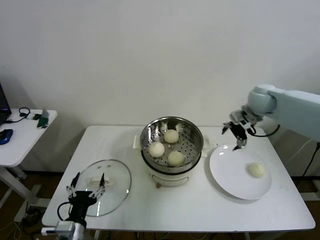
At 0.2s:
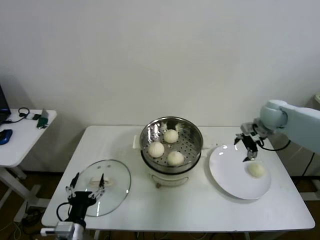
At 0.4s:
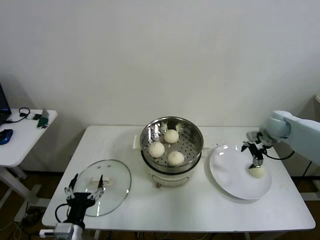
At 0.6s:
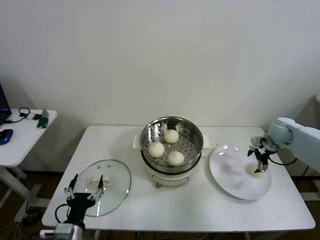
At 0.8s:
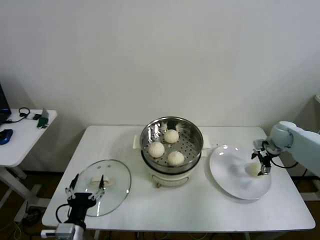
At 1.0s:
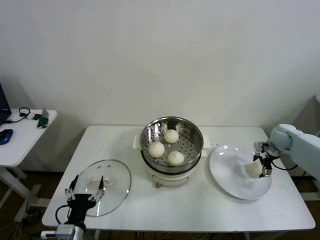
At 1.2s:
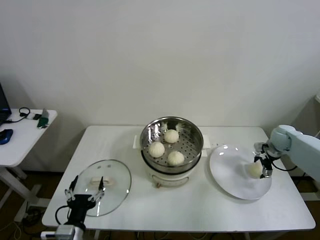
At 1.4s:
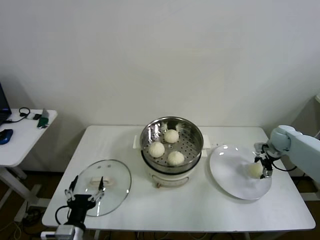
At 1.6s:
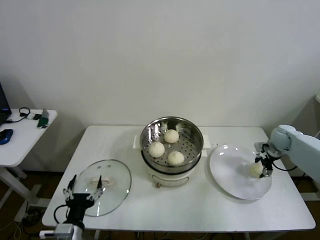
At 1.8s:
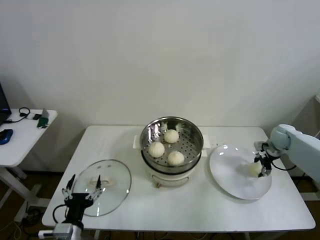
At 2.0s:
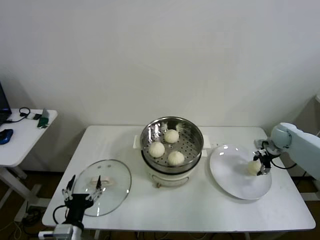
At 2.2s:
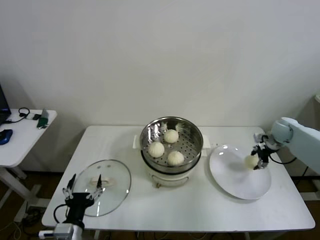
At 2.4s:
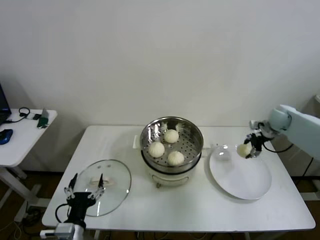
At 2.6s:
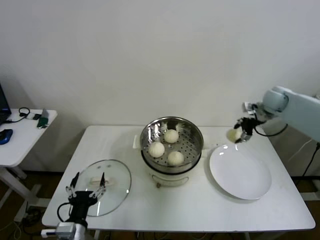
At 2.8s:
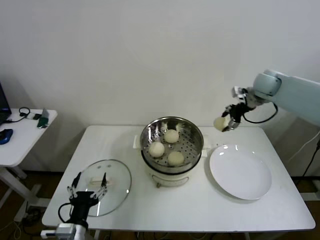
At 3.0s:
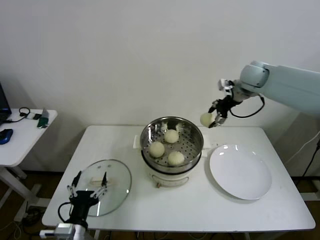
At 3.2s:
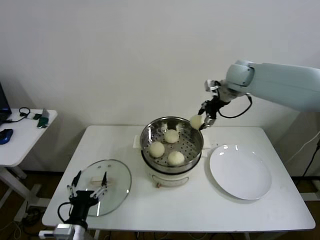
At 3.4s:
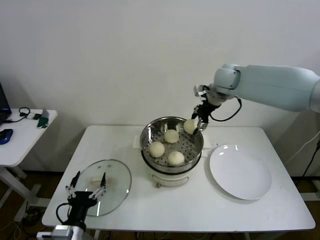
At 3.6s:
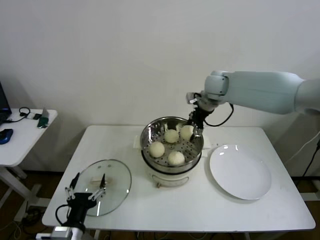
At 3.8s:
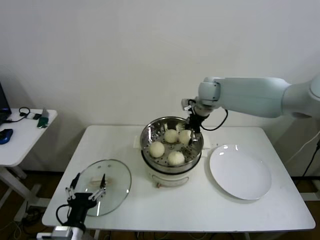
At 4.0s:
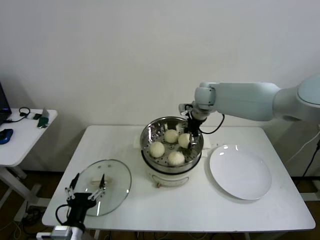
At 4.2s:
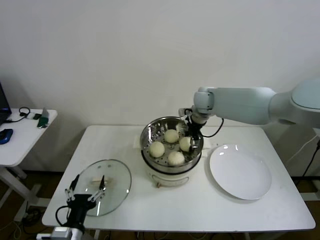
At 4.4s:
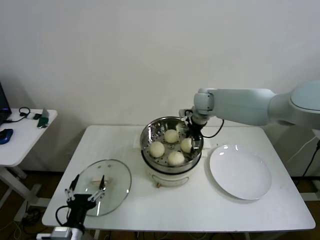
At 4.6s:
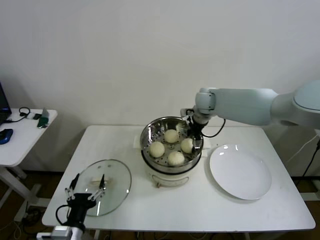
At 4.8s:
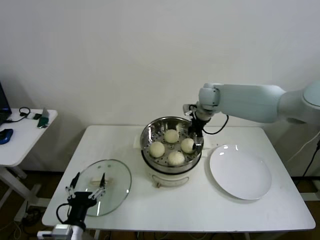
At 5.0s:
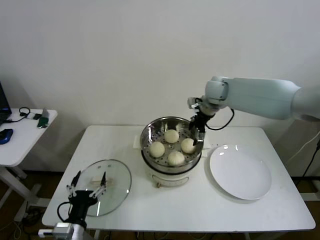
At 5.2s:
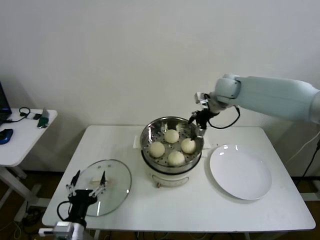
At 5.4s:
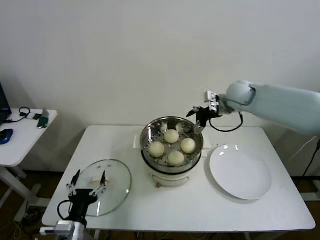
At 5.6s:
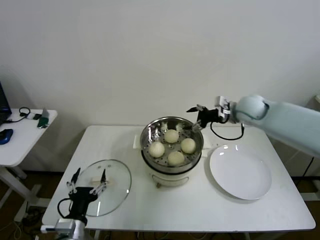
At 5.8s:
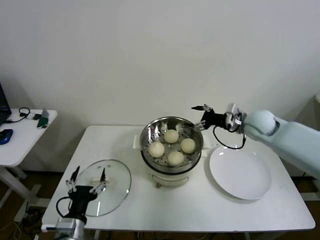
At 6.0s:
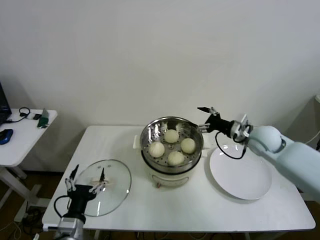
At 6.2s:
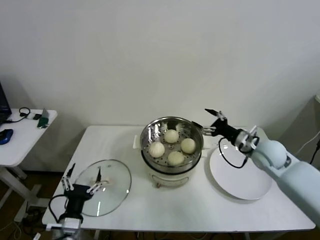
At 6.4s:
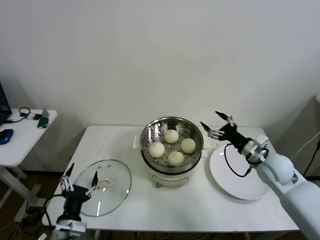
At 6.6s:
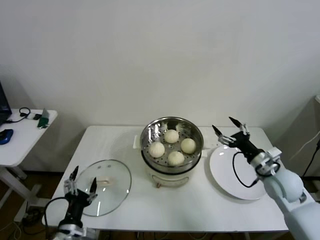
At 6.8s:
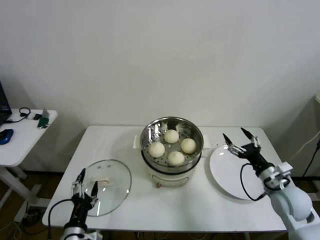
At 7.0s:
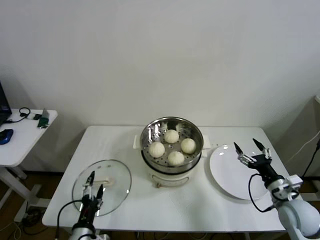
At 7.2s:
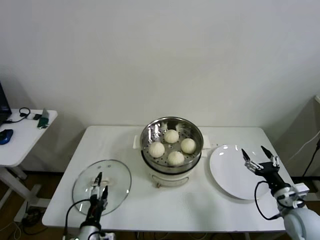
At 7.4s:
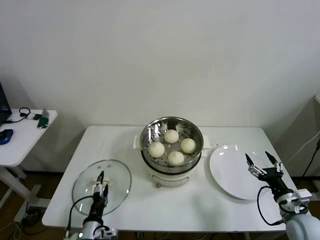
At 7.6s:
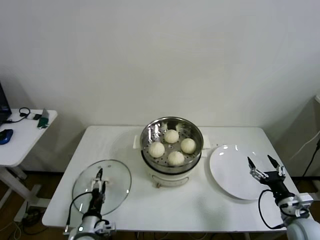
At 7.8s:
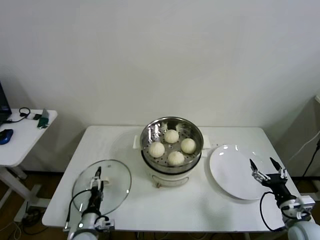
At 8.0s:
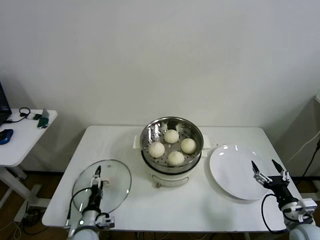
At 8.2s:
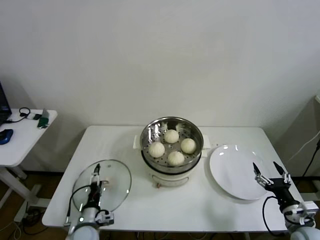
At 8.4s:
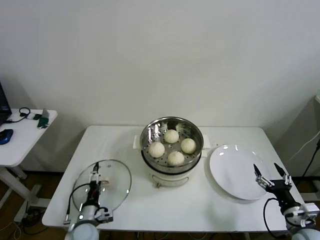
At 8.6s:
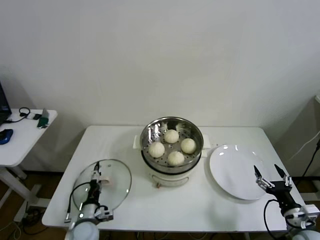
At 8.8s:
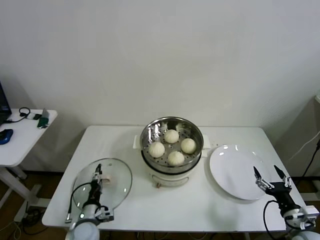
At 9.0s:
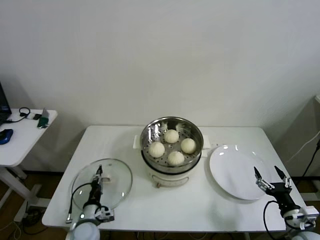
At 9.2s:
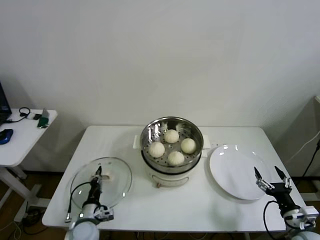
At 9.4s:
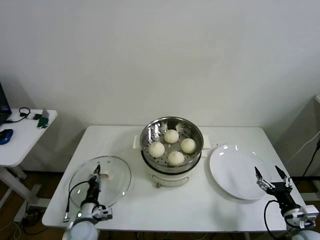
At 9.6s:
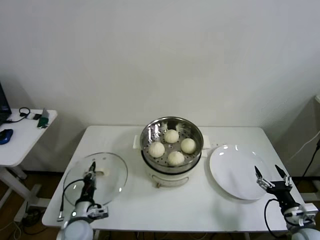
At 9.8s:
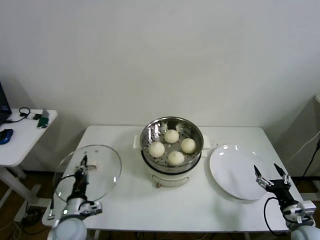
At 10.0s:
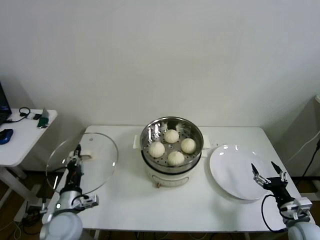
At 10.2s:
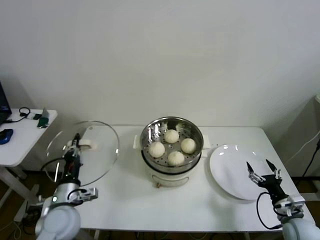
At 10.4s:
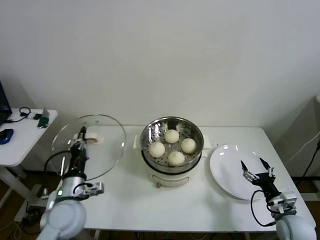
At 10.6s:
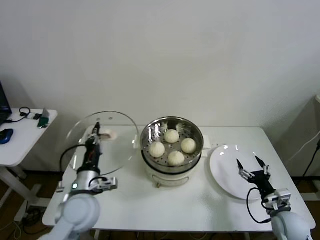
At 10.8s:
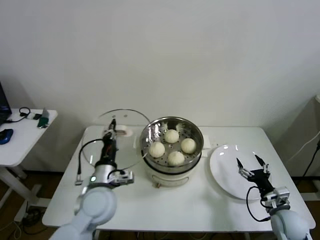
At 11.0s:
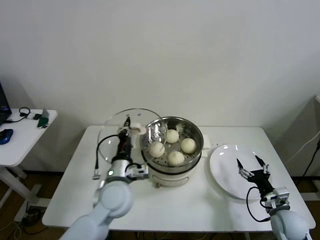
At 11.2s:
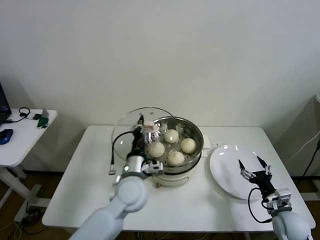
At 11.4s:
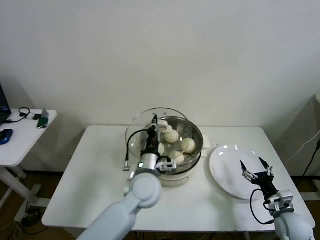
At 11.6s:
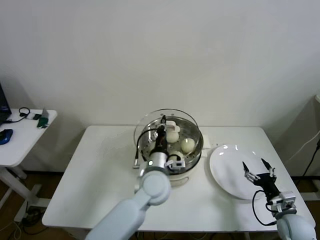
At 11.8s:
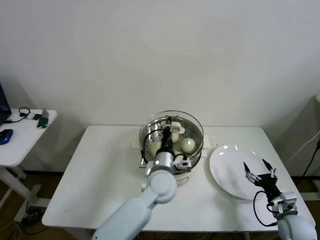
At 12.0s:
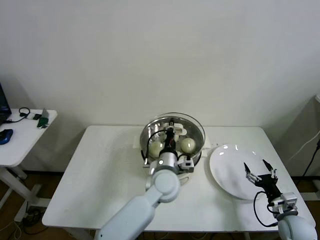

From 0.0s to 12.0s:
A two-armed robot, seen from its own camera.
Step, from 0.0s to 1.6s: Grasp the baozi in the plate with right gripper.
Step, from 1.8s to 4.6s: Place the baozi on the steamer with right gripper.
Step, from 4.8s to 9.0s: Grasp the pot lid with left gripper.
From 0.0s to 1.6s: The right gripper is displaced downward and to the right by roughly 25 cm, and closes.
From 1.6s to 3.0s: The right gripper travels upward and to the left by roughly 30 cm.
From 3.0s to 4.4s: The right gripper travels to the left and downward by some 20 cm, and opens.
From 4.4s to 6.0s: The right gripper shifts about 20 cm to the right and backward, and opens its fingers.
From 6.0s to 7.6s: The left gripper moves downward, some 10 cm. Meanwhile the right gripper is displaced backward and downward by some 30 cm.
From 7.6s to 9.0s: The left gripper travels forward by roughly 5 cm, and closes.
From 9.0s to 10.4s: The left gripper heads upward, covering some 20 cm, and closes. Meanwhile the right gripper moves forward, some 5 cm.
From 10.4s to 12.0s: The left gripper travels to the right by some 25 cm.

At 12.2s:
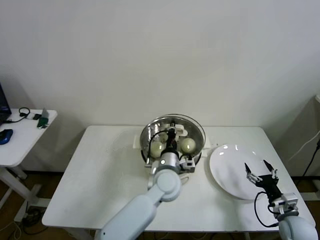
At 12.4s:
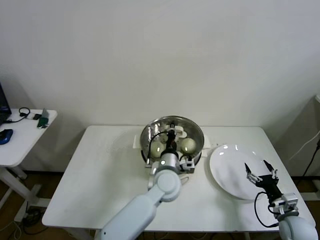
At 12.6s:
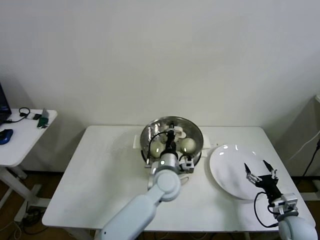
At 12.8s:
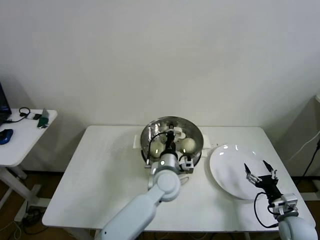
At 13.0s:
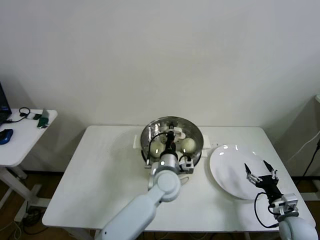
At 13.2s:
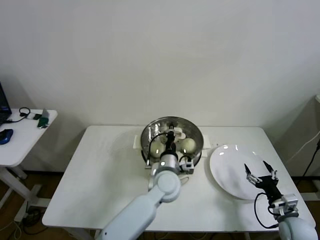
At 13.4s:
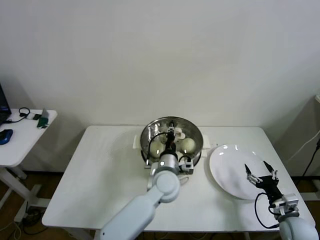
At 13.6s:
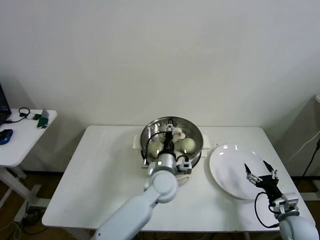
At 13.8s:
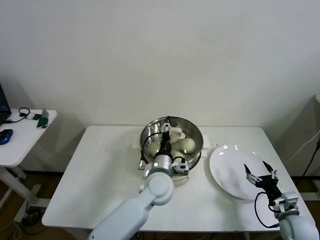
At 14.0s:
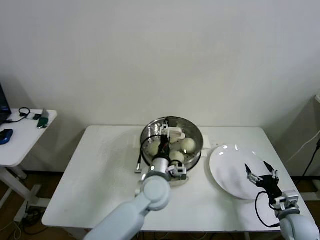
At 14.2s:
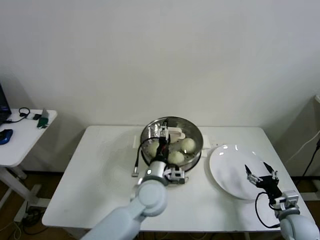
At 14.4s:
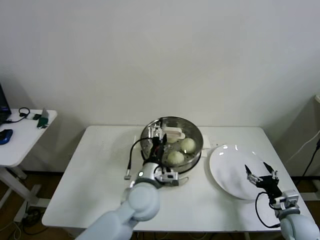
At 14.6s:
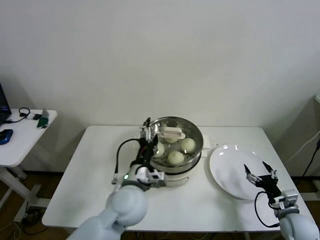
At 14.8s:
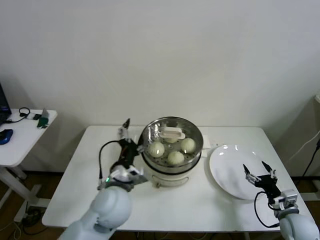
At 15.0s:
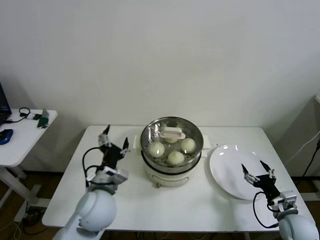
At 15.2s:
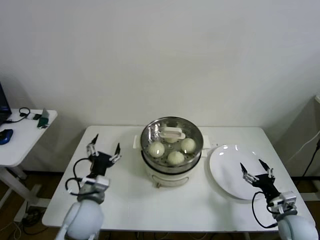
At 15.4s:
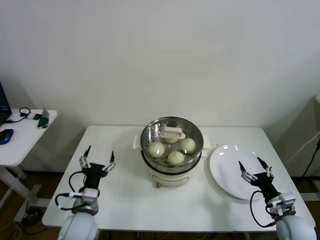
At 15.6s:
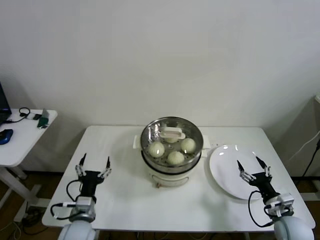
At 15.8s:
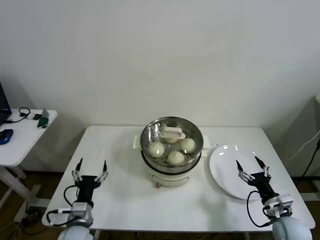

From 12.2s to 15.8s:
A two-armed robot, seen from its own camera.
From 12.2s to 14.0s: The left gripper opens.
From 14.0s to 15.8s: The left gripper is displaced to the left and backward by about 25 cm.
